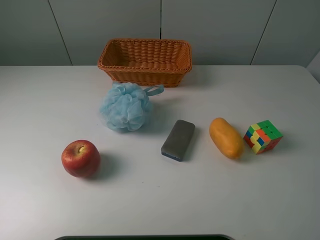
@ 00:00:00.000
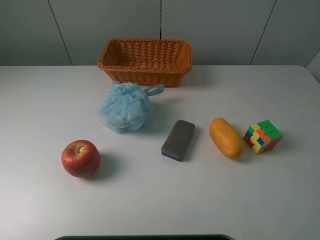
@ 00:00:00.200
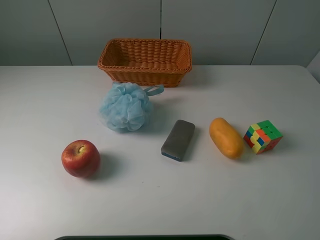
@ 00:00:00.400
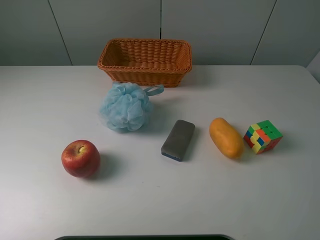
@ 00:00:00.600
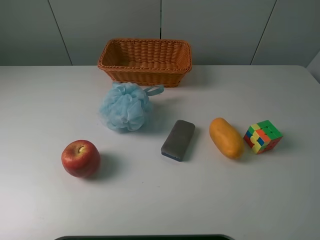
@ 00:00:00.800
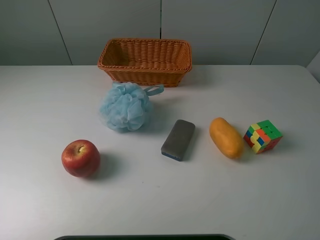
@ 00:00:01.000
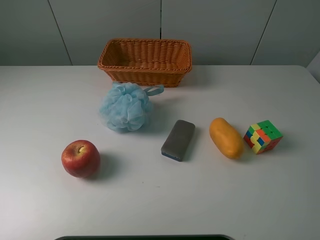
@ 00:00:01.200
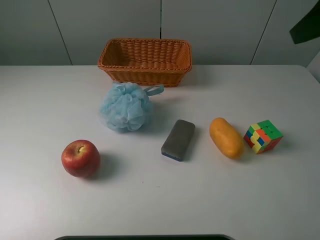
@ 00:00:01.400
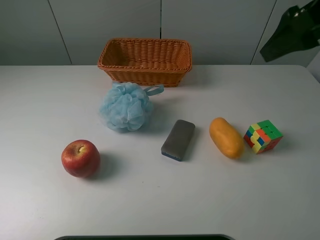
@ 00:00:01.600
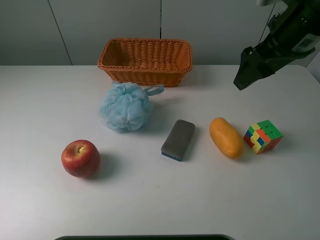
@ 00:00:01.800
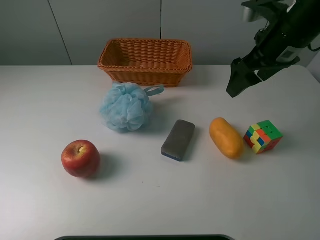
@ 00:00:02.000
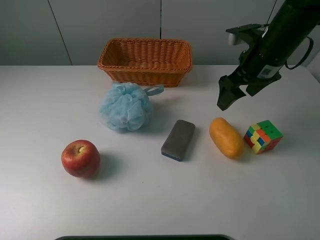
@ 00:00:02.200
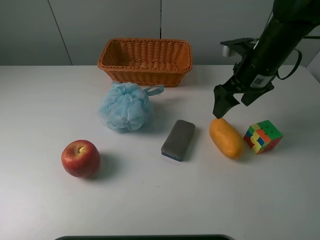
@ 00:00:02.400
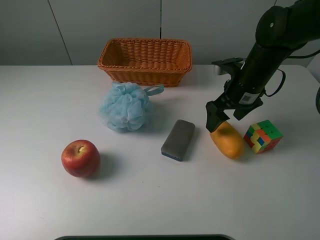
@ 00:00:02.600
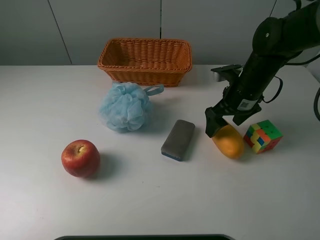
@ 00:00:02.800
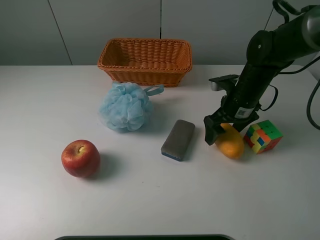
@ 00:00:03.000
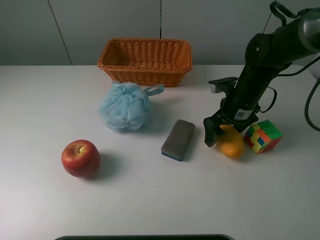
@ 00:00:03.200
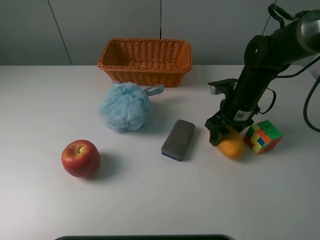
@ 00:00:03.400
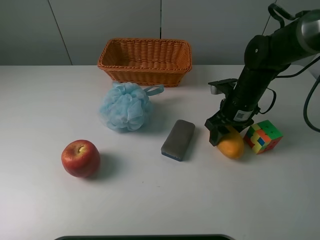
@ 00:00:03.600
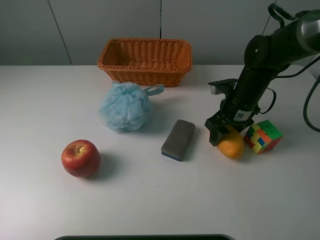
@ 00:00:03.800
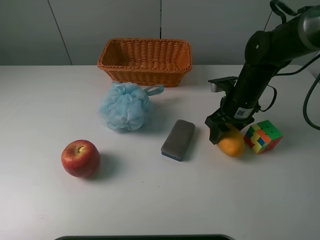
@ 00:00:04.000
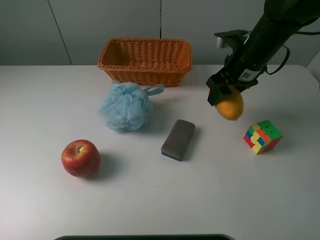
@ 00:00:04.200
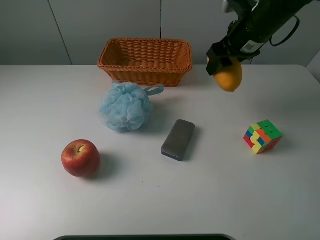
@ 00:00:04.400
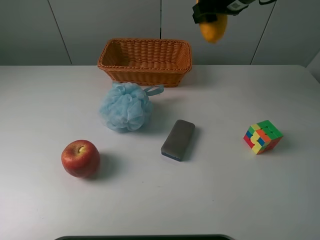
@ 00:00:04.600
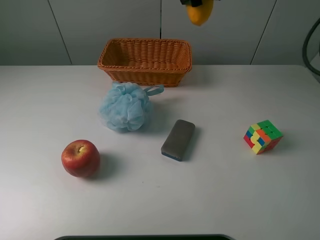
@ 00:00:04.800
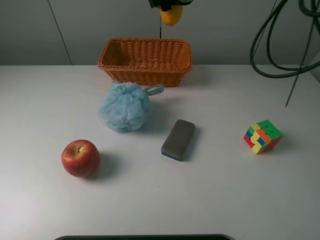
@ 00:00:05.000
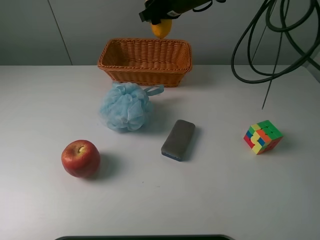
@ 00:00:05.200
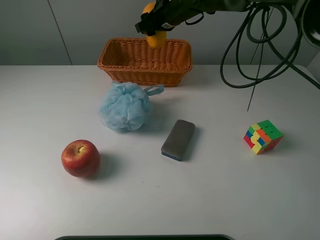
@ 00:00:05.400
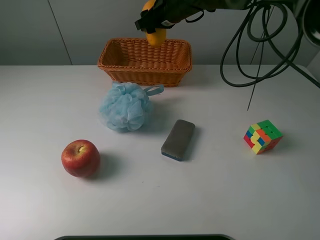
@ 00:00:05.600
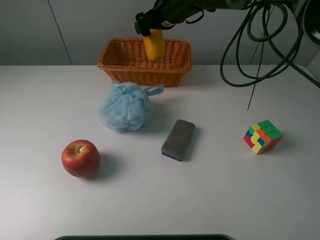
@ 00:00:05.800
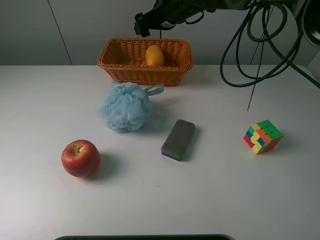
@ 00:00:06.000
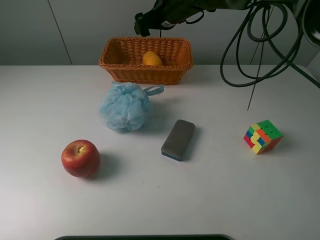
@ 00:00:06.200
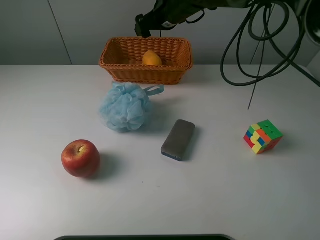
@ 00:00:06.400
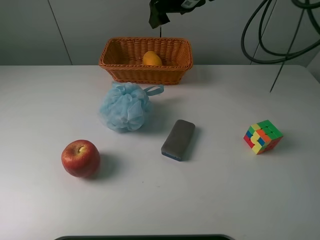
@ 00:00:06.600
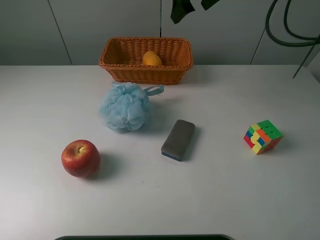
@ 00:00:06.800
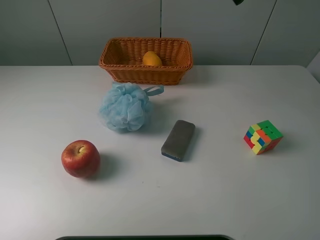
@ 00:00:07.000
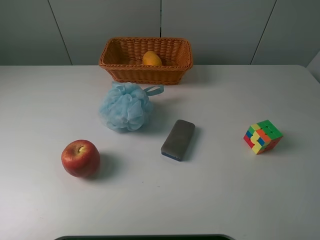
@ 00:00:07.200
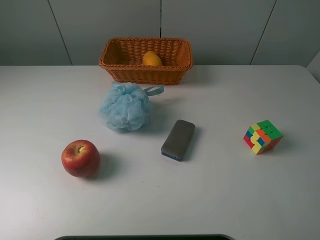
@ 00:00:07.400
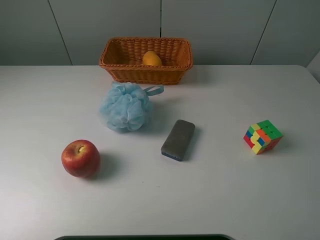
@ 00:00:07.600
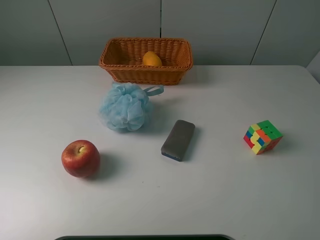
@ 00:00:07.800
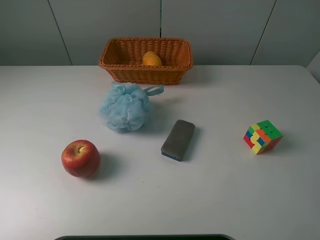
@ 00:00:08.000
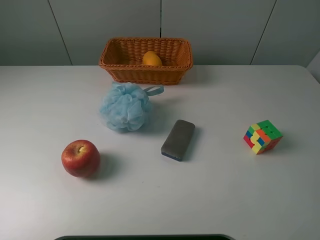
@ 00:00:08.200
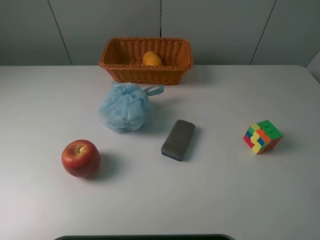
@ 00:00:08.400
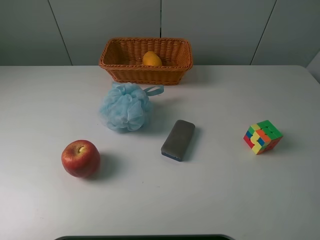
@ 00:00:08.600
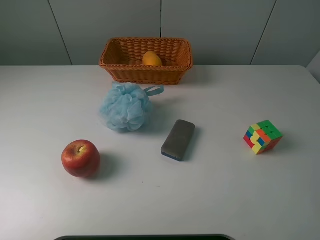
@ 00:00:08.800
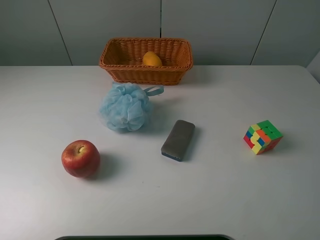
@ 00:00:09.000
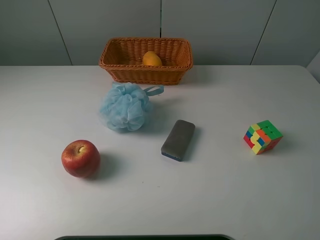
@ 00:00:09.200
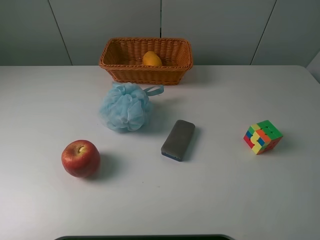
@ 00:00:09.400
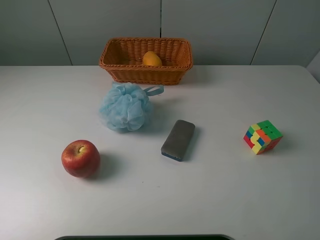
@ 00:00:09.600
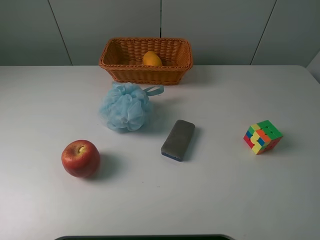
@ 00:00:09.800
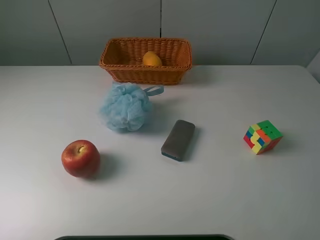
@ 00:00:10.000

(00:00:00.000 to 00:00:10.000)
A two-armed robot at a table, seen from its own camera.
Task of the whole recording: use a picker to grab the item closest to the cube and place it in the basket.
Step, 00:00:00.000 - 00:00:03.800: Grasp the mango with the right gripper.
Step, 00:00:04.000 - 00:00:06.400: Place the mango into the basket with the right gripper.
00:00:00.000 - 00:00:01.400: The right gripper heads forward, covering roughly 20 cm.
00:00:01.400 - 00:00:02.800: The right gripper is displaced downward and forward by about 25 cm.
00:00:02.800 - 00:00:04.200: The right gripper heads upward, covering roughly 5 cm, and closes.
00:00:04.200 - 00:00:05.800: The right gripper travels forward and to the left by approximately 20 cm, and opens up.
00:00:05.800 - 00:00:07.200: The right gripper shifts about 35 cm to the right, upward and backward.
